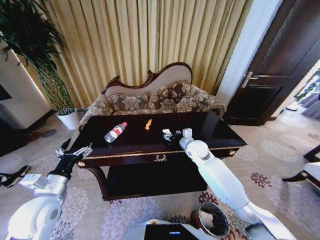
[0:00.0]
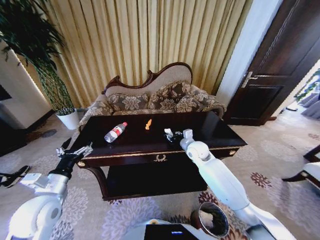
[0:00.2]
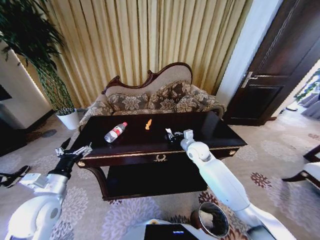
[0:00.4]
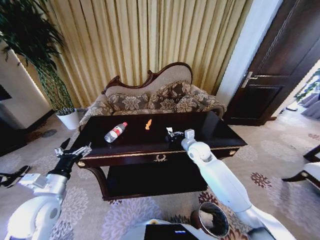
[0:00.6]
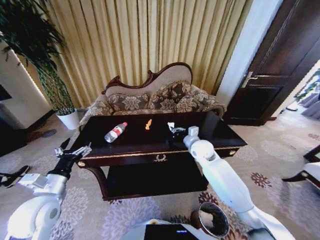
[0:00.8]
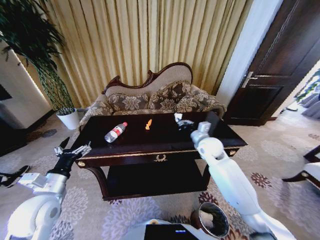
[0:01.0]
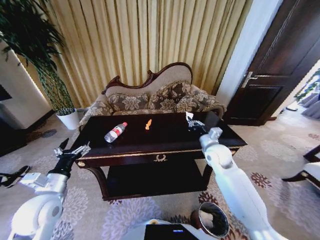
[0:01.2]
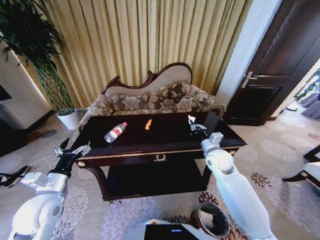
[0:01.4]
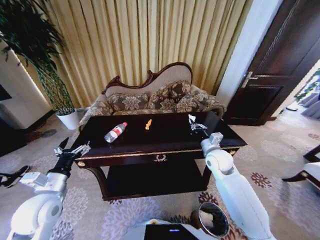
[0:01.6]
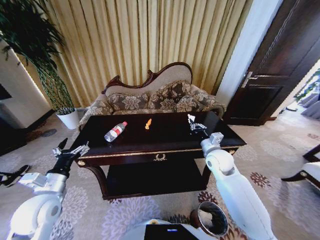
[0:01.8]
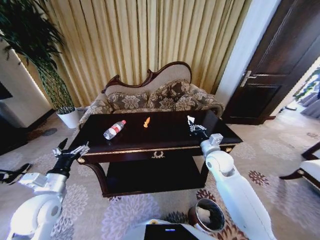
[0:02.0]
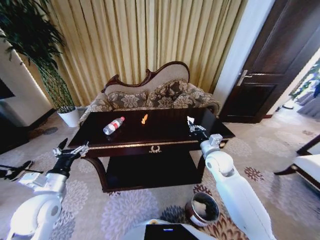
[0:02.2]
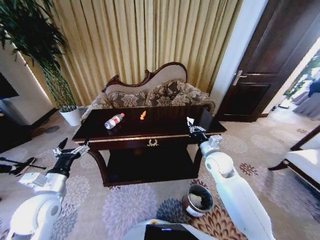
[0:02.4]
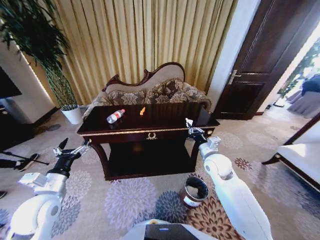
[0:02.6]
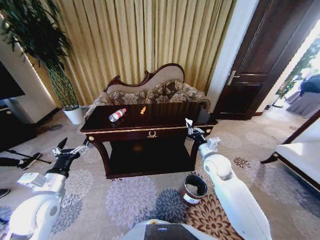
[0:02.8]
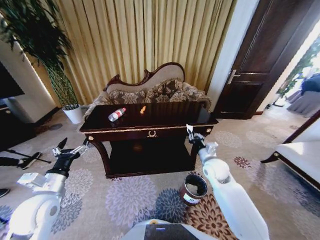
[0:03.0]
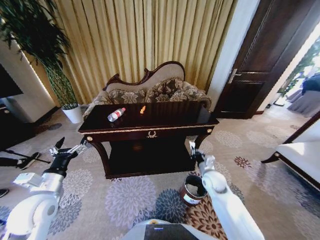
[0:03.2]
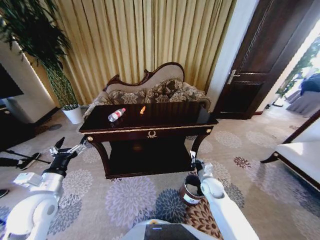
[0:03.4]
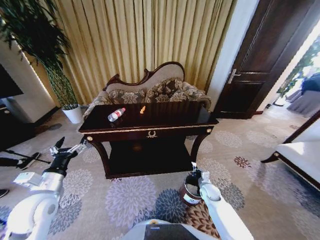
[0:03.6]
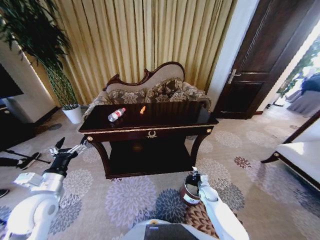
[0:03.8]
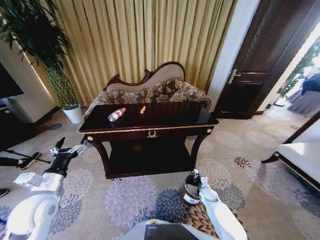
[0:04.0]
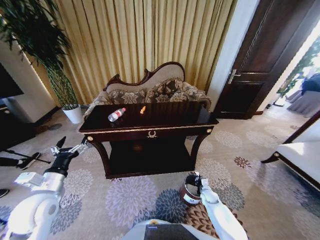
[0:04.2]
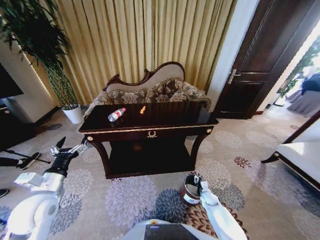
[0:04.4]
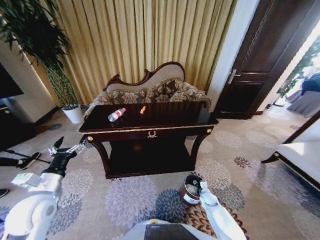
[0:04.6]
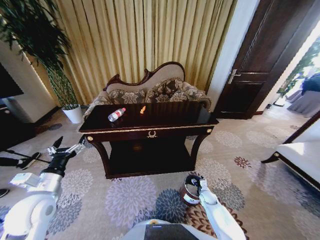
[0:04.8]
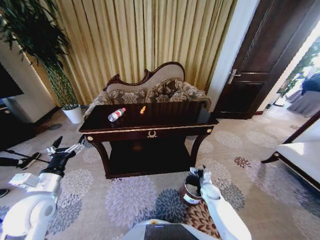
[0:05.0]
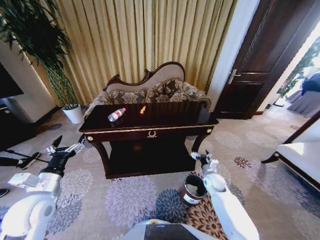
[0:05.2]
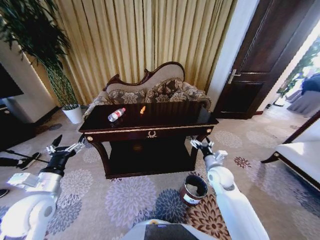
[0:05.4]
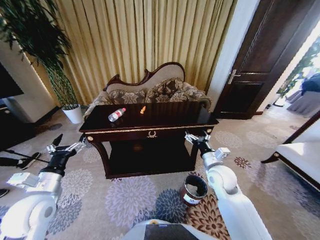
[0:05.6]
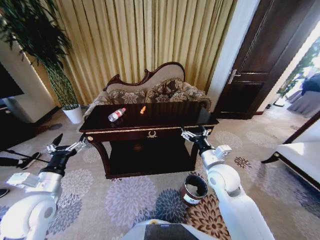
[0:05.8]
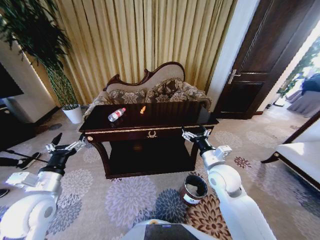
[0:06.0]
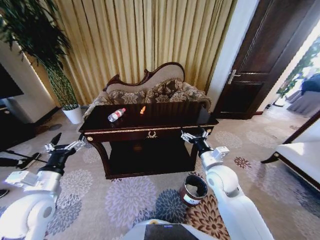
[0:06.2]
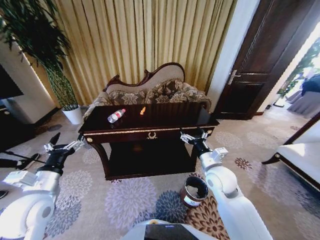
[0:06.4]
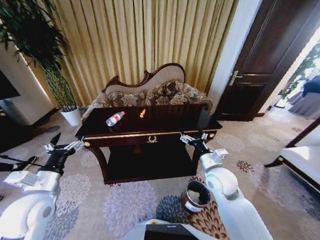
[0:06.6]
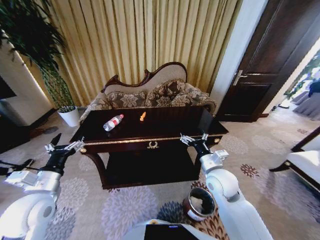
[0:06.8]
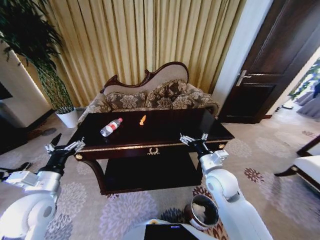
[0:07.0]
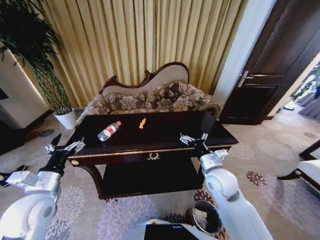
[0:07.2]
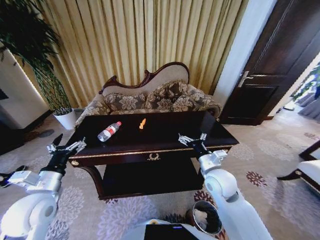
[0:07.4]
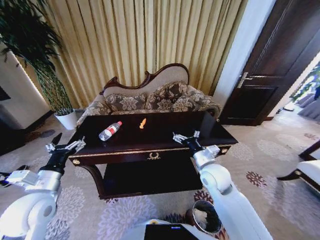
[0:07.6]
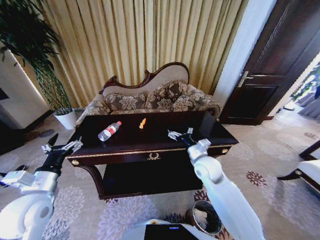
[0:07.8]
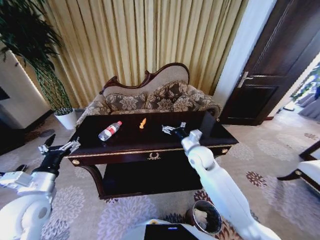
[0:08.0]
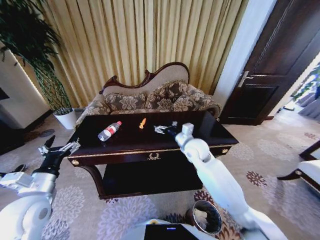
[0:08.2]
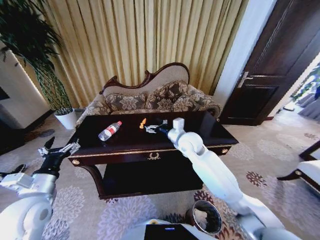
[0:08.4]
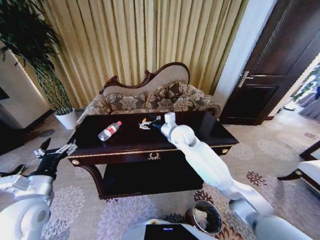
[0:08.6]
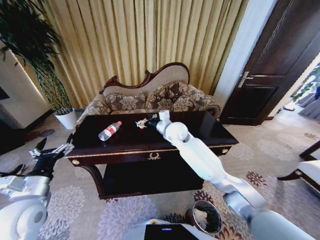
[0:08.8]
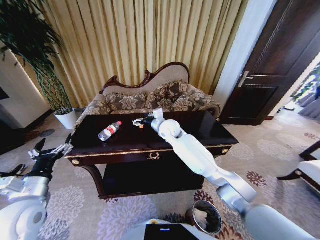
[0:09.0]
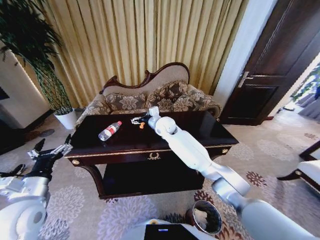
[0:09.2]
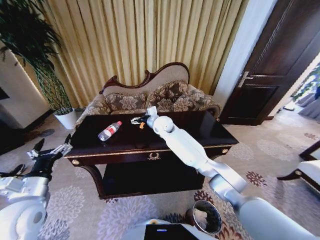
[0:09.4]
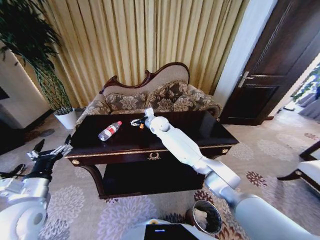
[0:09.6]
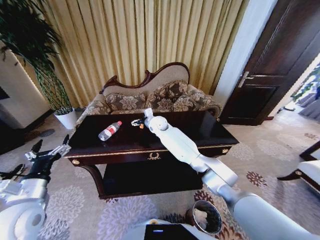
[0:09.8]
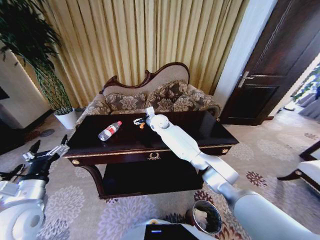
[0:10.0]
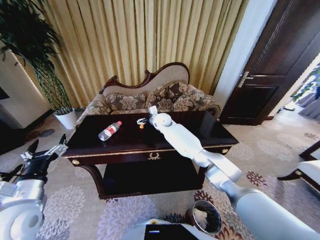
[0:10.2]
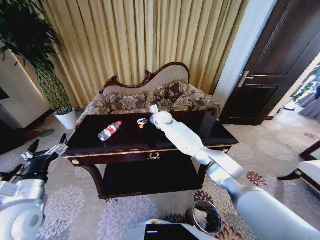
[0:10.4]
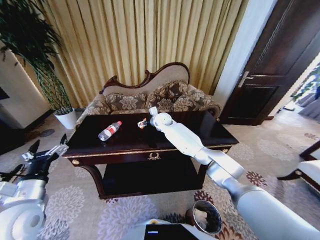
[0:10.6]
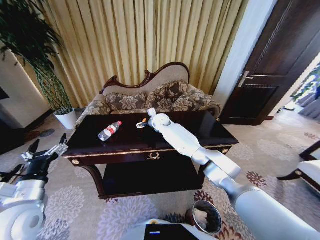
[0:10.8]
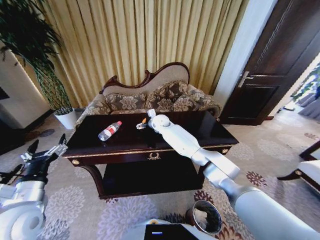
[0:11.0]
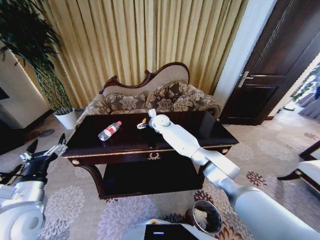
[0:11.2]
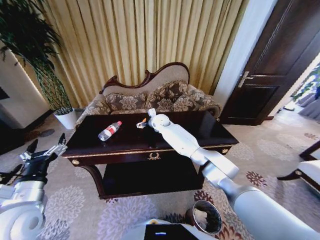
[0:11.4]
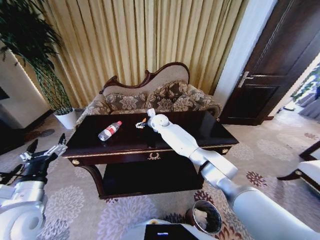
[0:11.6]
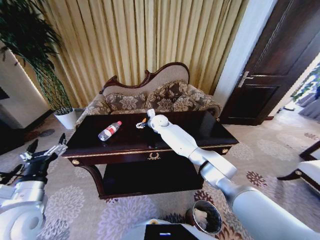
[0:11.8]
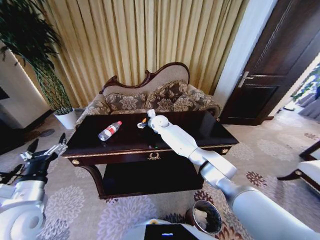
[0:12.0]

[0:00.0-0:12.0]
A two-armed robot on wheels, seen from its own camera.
Task of the whole recording: Move to the front of the table and place the trash on the table into the trash bin.
0:00.0 to 0:01.6: The right gripper moves backward and to the right, approximately 10 cm, and closes.
0:01.6 to 0:03.0: The right gripper is displaced downward by approximately 5 cm.
0:03.0 to 0:04.4: The right gripper shifts approximately 30 cm downward.
0:04.4 to 0:06.0: The right gripper goes roughly 35 cm upward, and opens its fingers.
0:07.6 to 0:09.0: The right gripper travels forward and to the left by approximately 25 cm.
0:09.0 to 0:10.4: The right gripper goes roughly 10 cm forward.
0:10.4 to 0:12.0: There are only small adjustments of the grippers.

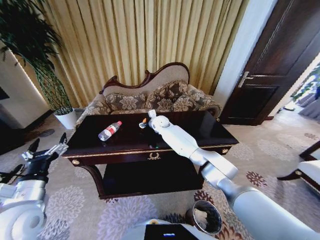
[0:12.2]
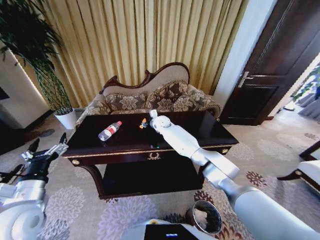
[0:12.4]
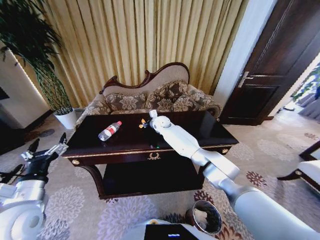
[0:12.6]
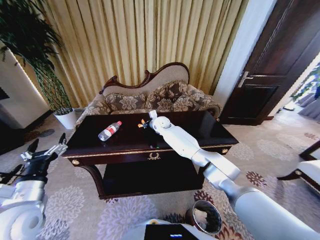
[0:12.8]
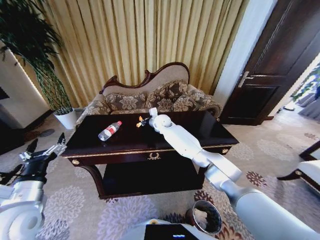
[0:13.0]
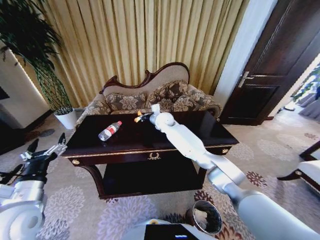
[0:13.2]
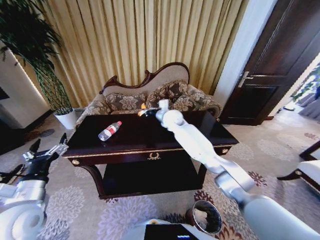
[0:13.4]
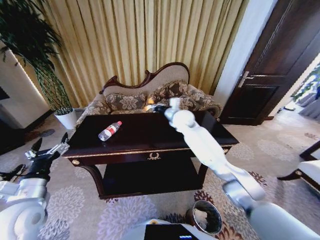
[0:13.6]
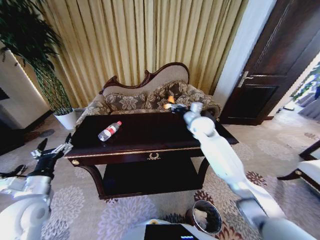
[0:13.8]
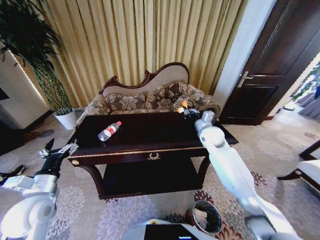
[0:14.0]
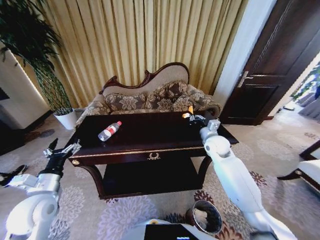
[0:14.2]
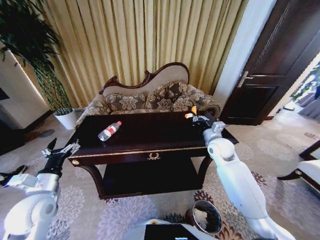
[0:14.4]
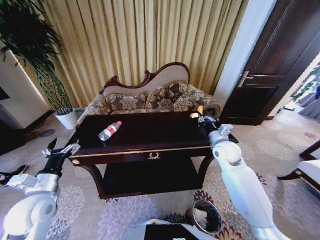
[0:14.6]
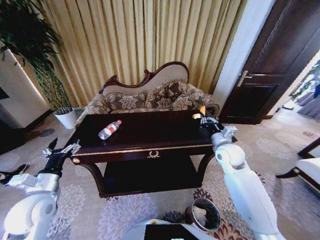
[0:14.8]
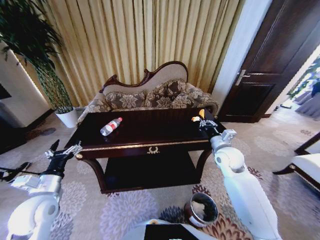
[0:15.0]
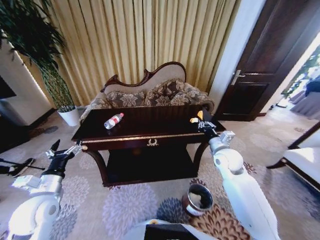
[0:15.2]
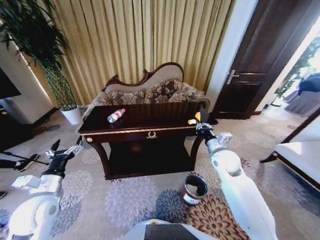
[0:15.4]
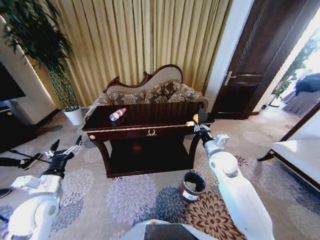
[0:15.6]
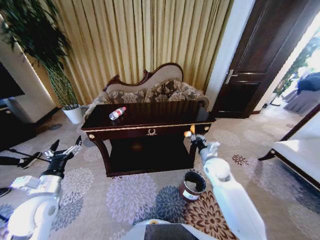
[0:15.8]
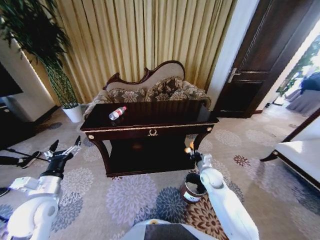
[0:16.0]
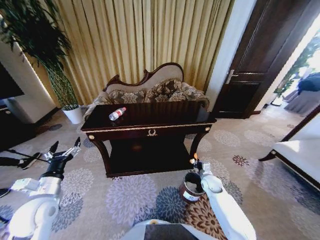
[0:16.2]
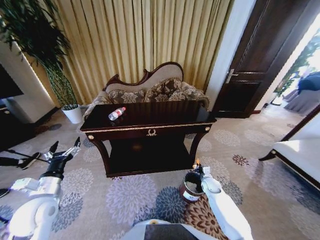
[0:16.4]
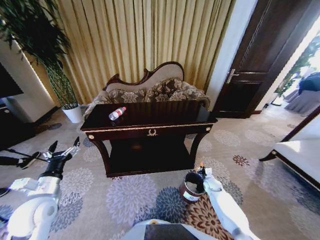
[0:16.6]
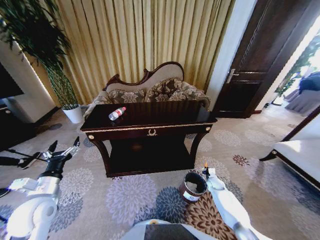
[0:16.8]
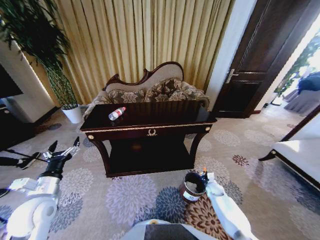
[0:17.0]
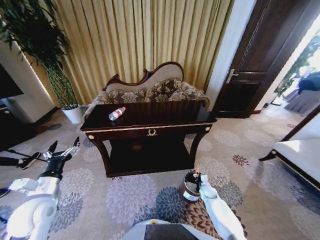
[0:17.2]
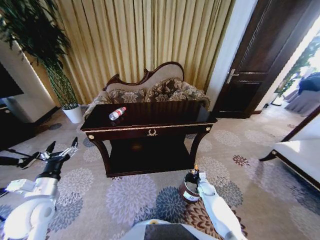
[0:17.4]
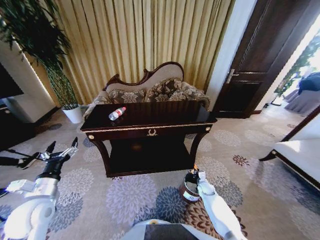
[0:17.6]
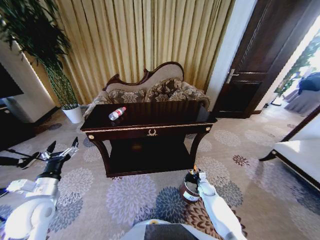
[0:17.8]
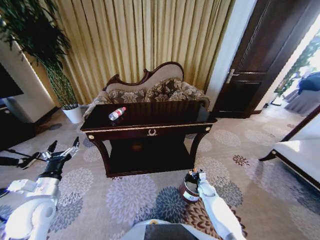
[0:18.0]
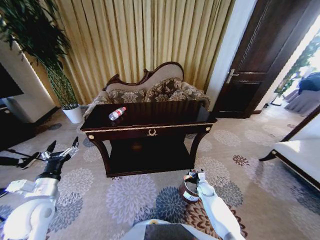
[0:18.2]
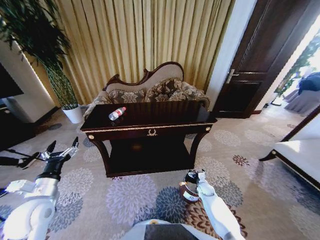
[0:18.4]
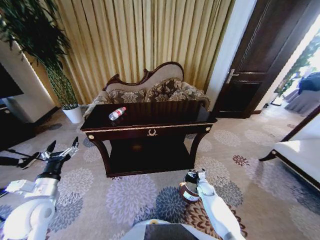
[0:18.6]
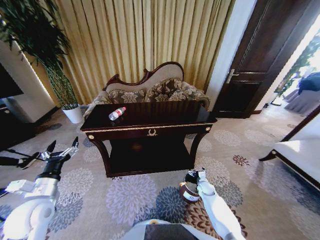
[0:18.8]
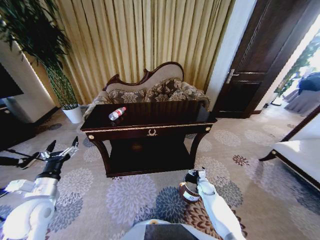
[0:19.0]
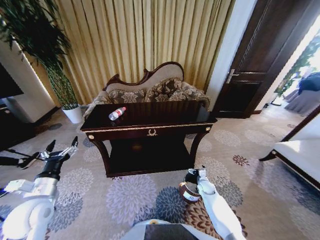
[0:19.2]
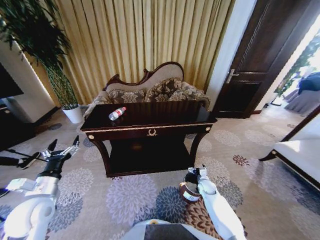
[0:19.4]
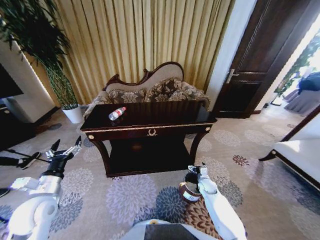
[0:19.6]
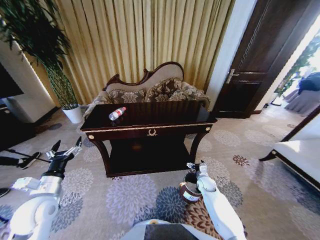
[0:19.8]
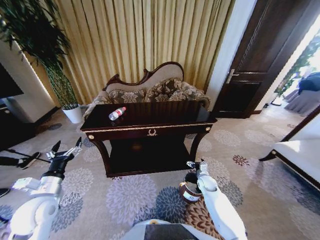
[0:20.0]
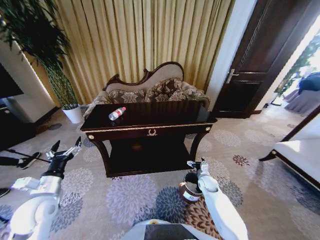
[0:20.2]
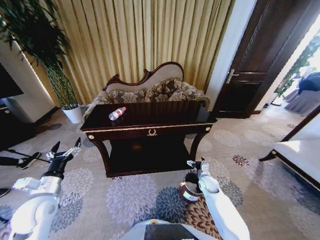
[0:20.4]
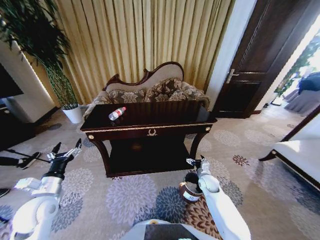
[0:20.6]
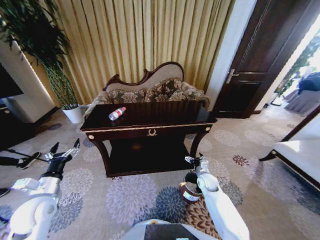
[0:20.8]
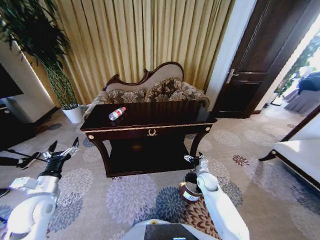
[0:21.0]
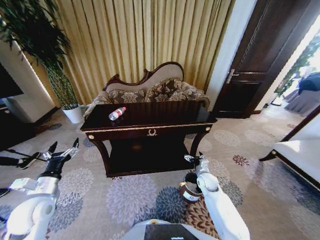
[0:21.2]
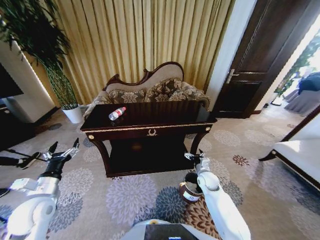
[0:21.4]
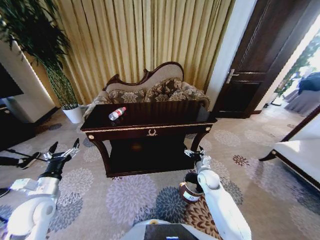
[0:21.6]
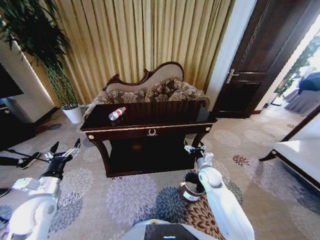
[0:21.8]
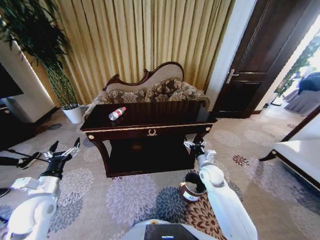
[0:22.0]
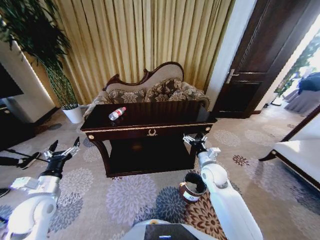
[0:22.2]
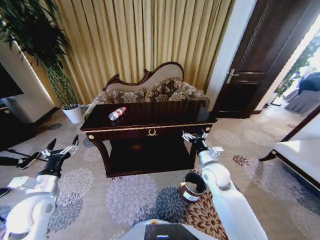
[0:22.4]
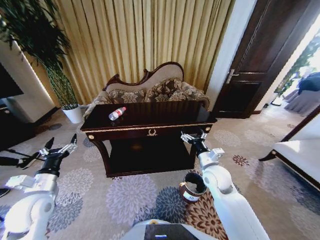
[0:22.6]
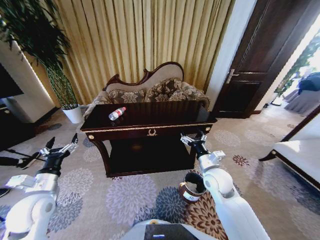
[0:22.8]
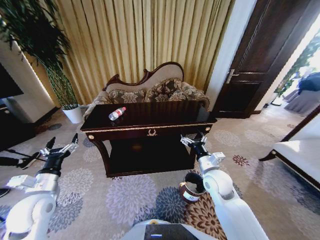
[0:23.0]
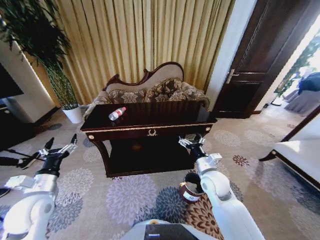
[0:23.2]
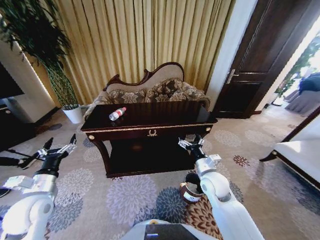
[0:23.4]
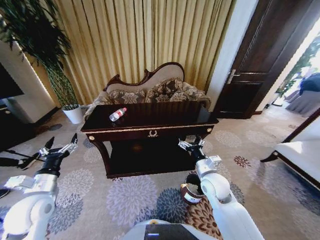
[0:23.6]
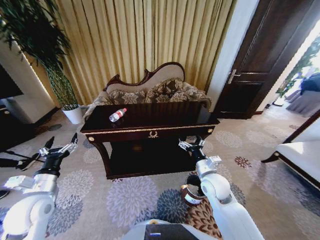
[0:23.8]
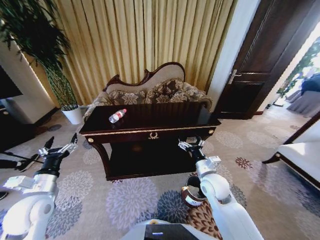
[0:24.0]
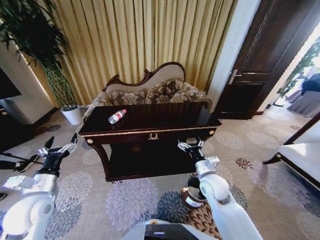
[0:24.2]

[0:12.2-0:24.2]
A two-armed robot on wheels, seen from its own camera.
Task of the whole recording: Move to the front of the table and place the trash on the table into the trash bin.
0:12.2 to 0:13.8: The right gripper is displaced to the right and backward by some 20 cm, and closes.
0:13.8 to 0:15.2: The right gripper is displaced backward, to the right and downward by some 15 cm.
0:15.2 to 0:16.6: The right gripper heads downward, covering about 30 cm.
0:16.6 to 0:18.2: The right gripper changes place by roughly 5 cm, and opens its fingers.
0:18.2 to 0:19.8: The right gripper goes approximately 5 cm upward.
0:19.8 to 0:21.2: The right gripper travels upward by some 5 cm.
0:21.2 to 0:22.6: The right gripper is displaced upward by about 15 cm.
